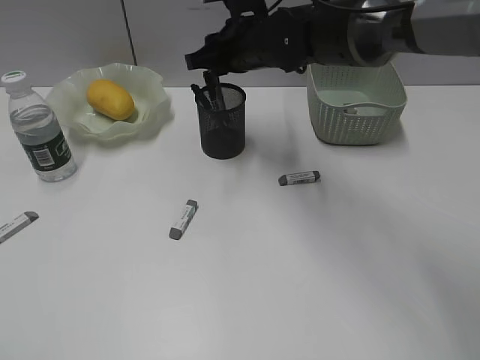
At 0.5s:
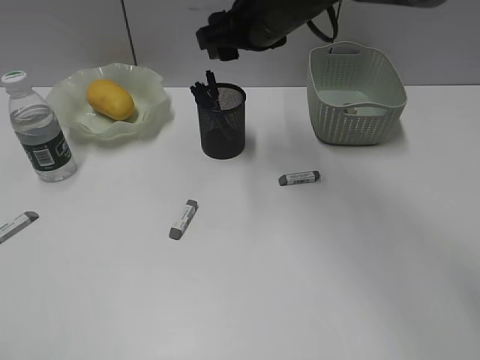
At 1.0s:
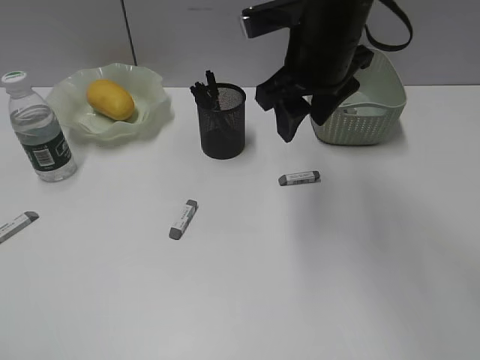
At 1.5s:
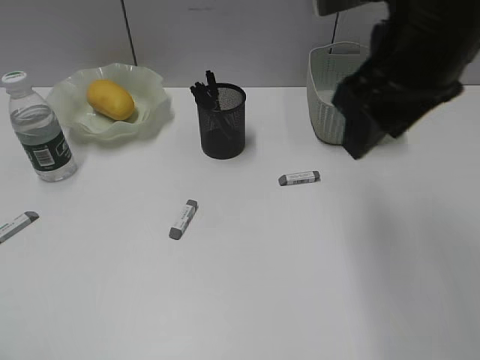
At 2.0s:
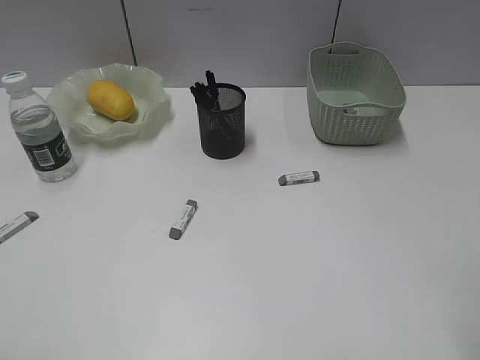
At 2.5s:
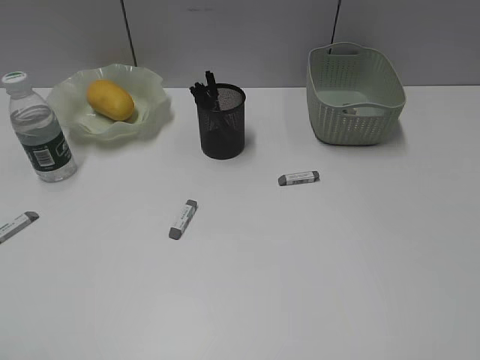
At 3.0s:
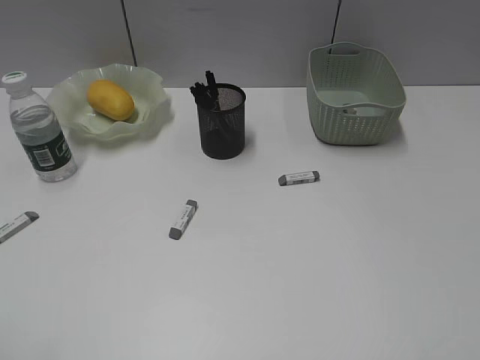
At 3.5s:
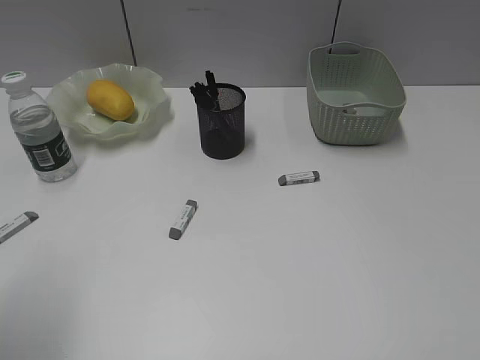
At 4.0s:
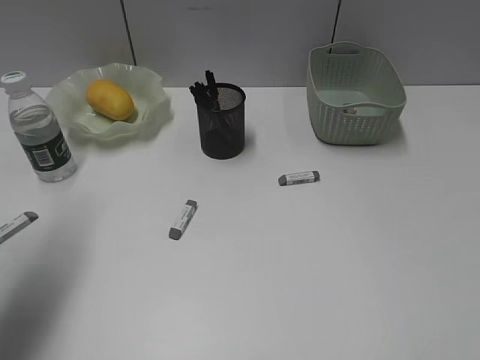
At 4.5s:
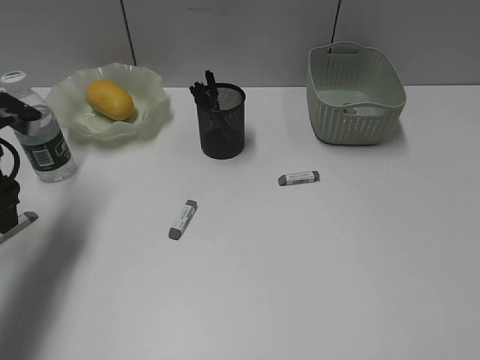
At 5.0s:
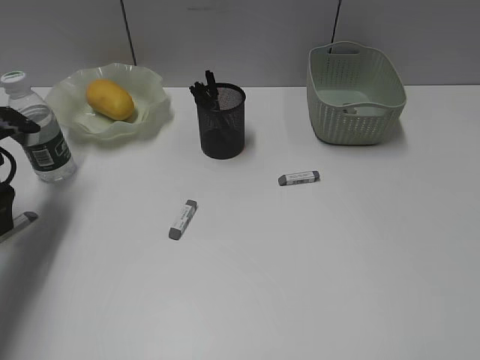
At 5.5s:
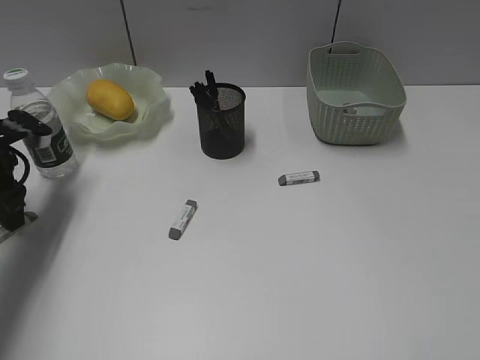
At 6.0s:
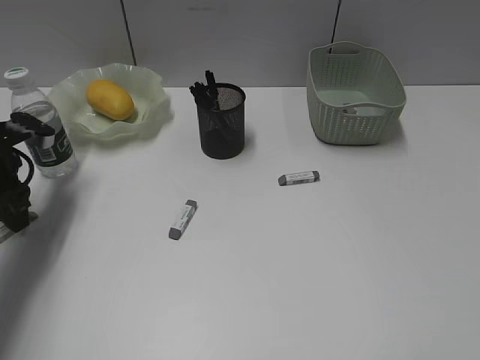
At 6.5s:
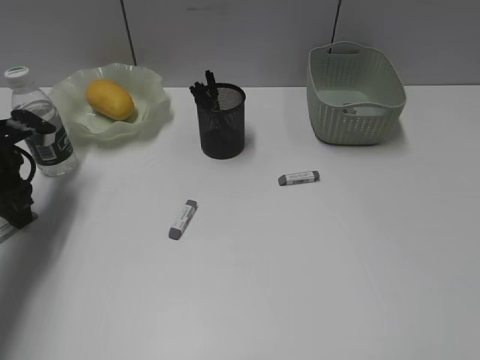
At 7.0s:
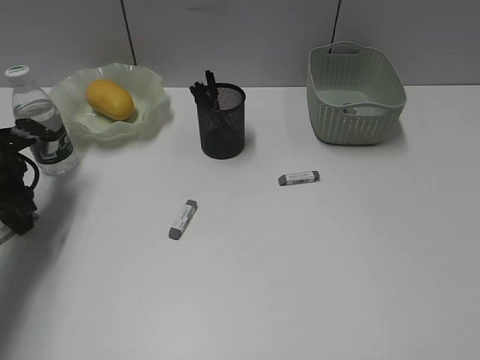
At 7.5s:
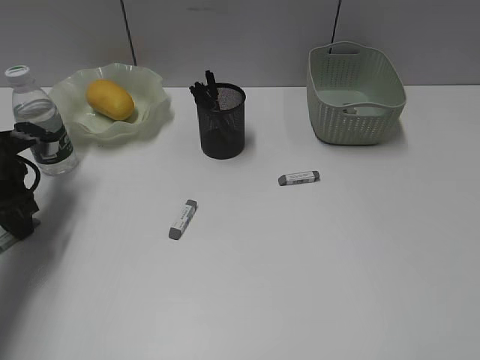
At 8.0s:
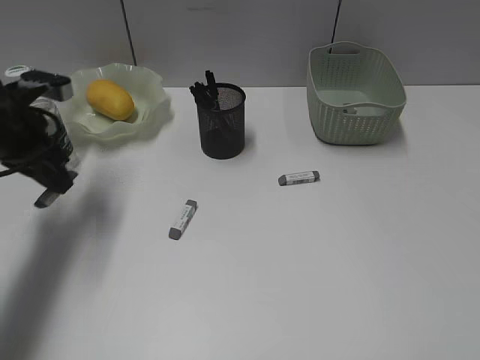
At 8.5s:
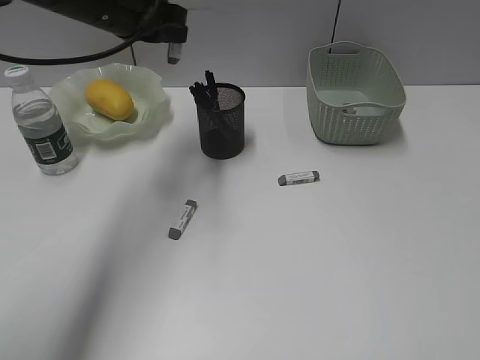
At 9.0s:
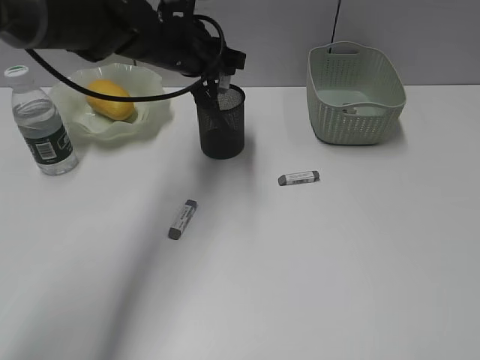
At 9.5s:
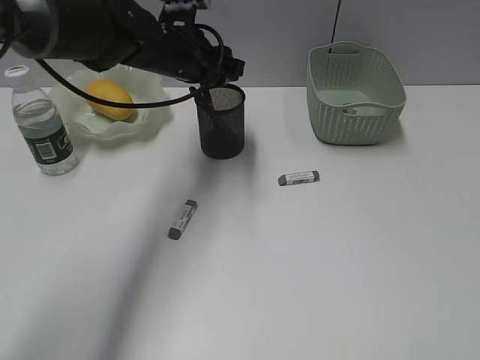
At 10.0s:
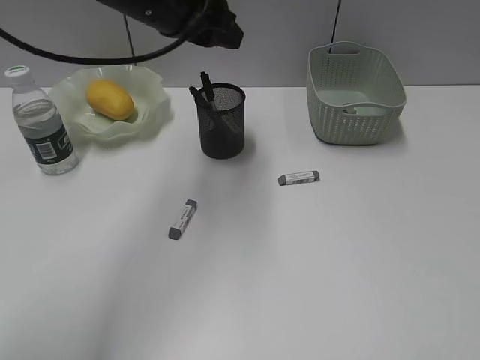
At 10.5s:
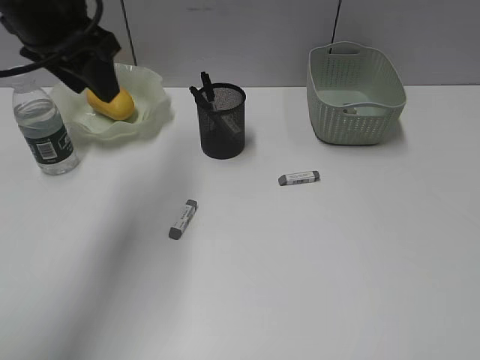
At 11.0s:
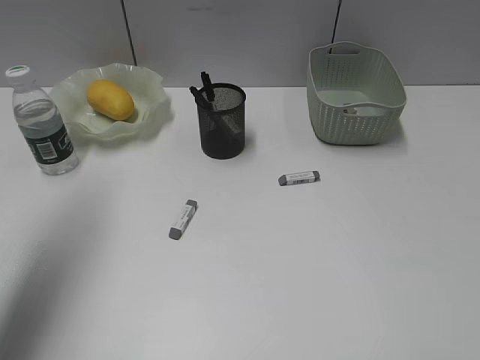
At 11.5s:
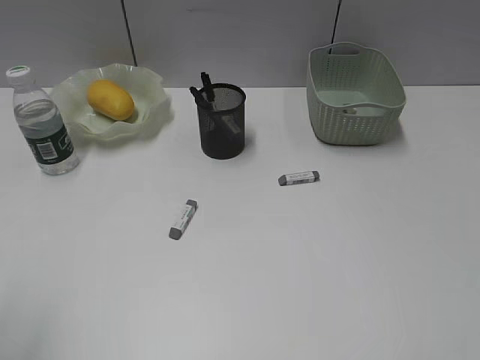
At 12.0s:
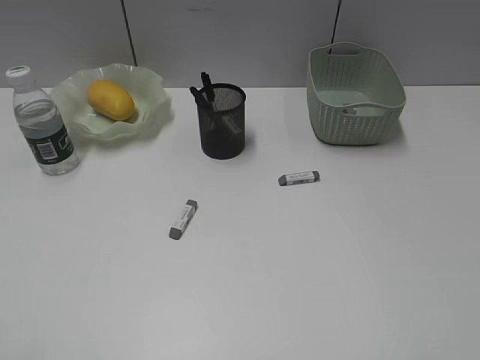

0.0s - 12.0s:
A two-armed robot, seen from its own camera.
Step, 0.5s - 7.5s: Grasp the eraser with left gripper.
Step, 8.0s - 9.5s: Place the eraser in pen holder with left gripper.
0.0s - 2.0s: The right gripper shifts some 40 cm backward and to the right.
2.0s - 4.0s: The left gripper is displaced forward by some 25 cm.
4.0s - 6.0s: The left gripper is displaced downward and forward by about 20 cm, and closes up.
6.0s - 8.0s: The left gripper travels upward and to the right by roughly 10 cm.
8.0s - 10.0s: The left gripper shifts roughly 20 cm to the right and upward, and opens.
10.0s - 12.0s: The left gripper travels backward and to the left by some 40 cm.

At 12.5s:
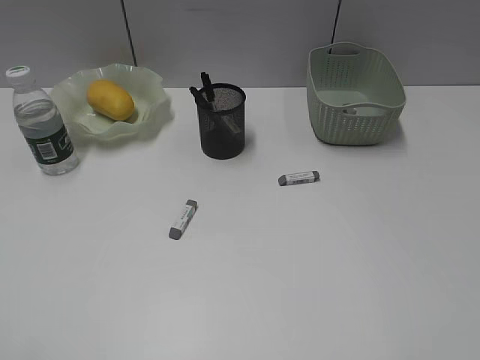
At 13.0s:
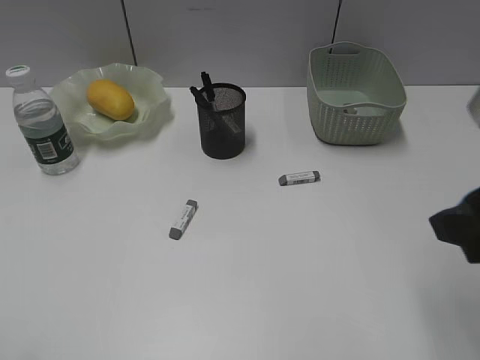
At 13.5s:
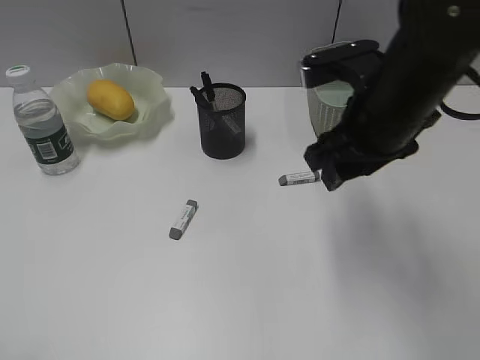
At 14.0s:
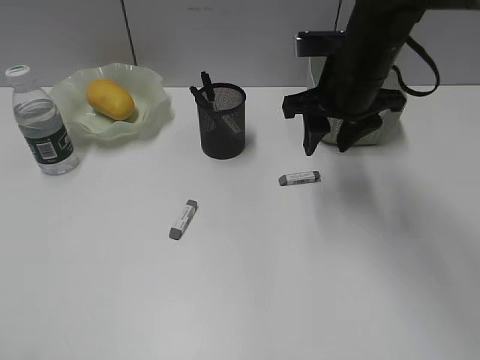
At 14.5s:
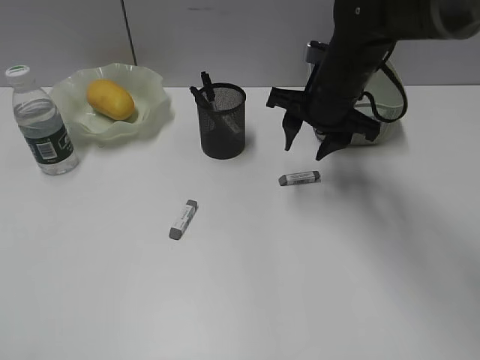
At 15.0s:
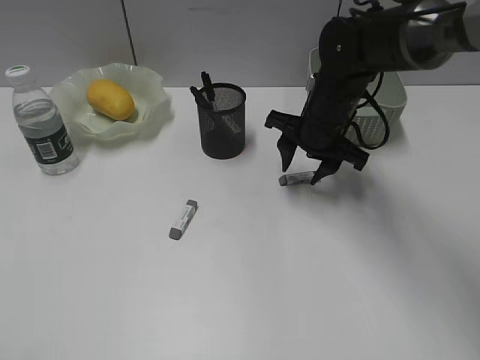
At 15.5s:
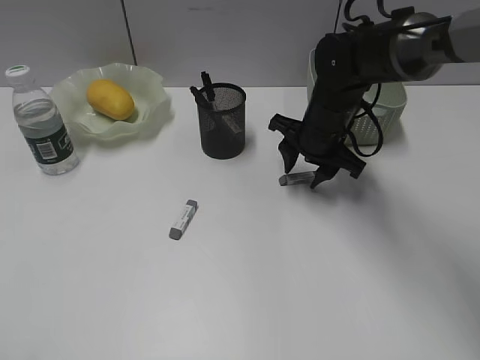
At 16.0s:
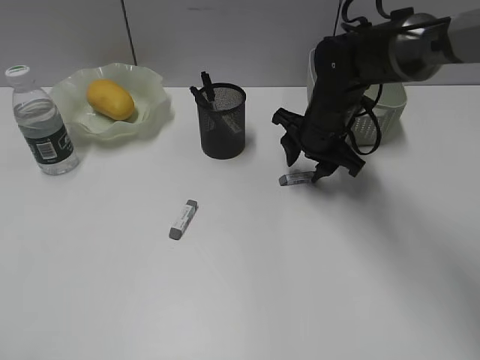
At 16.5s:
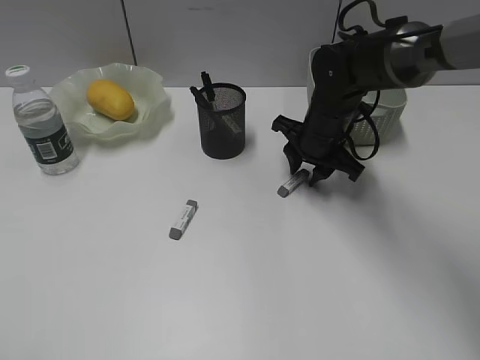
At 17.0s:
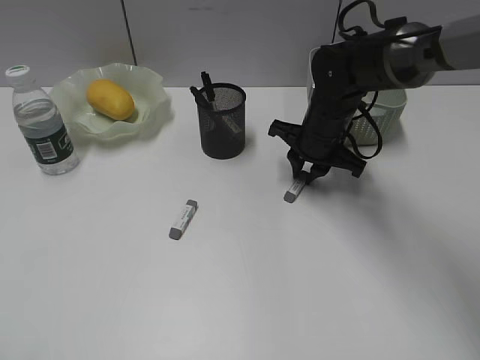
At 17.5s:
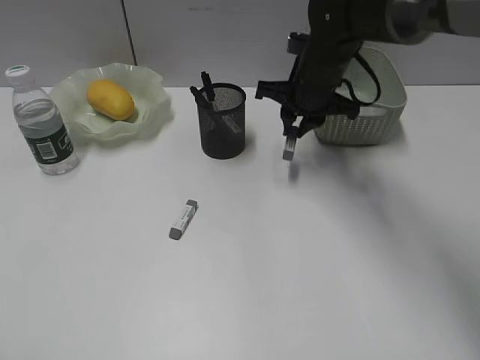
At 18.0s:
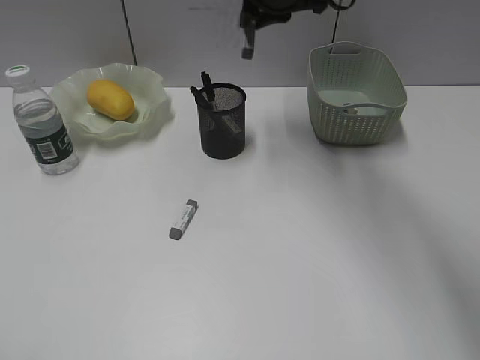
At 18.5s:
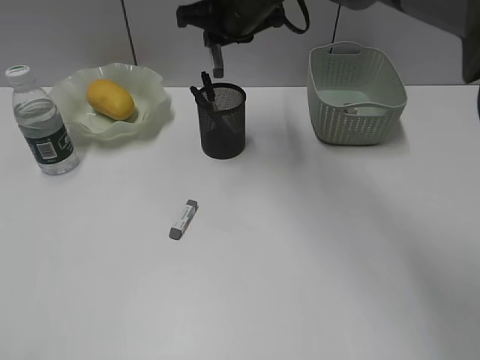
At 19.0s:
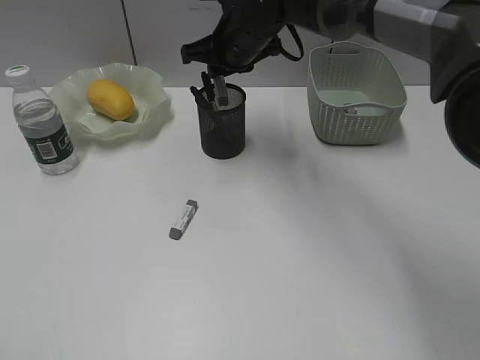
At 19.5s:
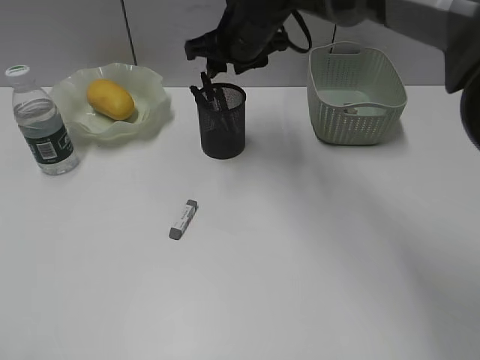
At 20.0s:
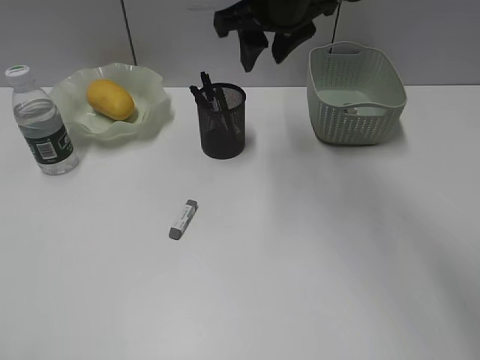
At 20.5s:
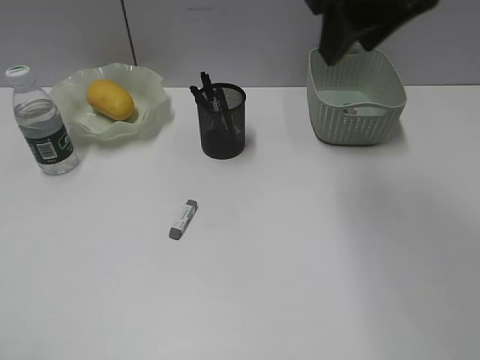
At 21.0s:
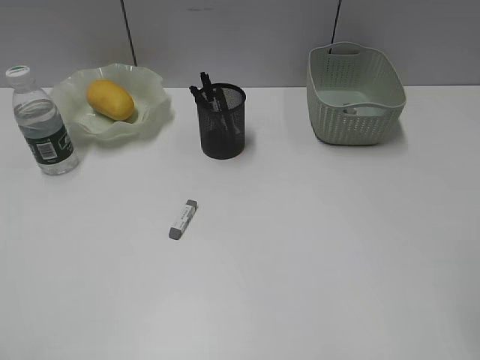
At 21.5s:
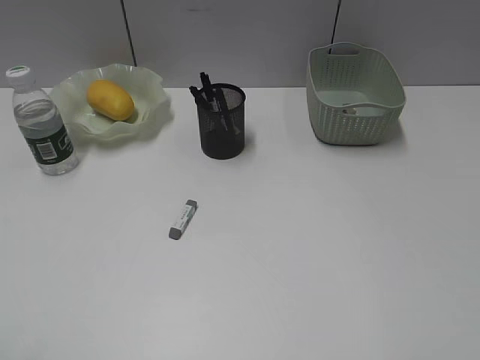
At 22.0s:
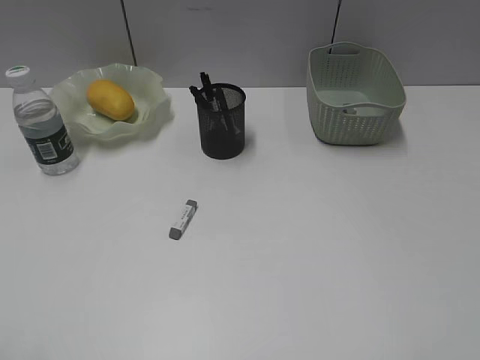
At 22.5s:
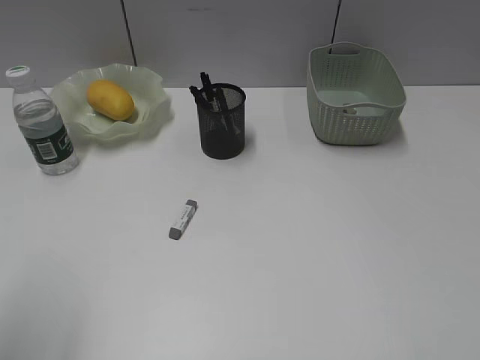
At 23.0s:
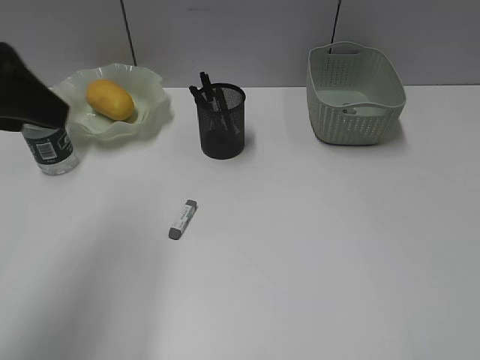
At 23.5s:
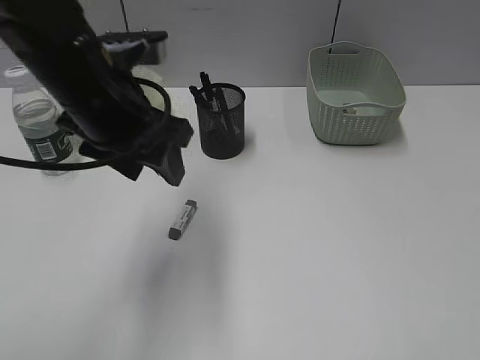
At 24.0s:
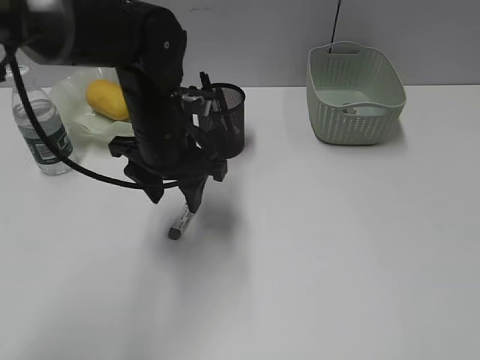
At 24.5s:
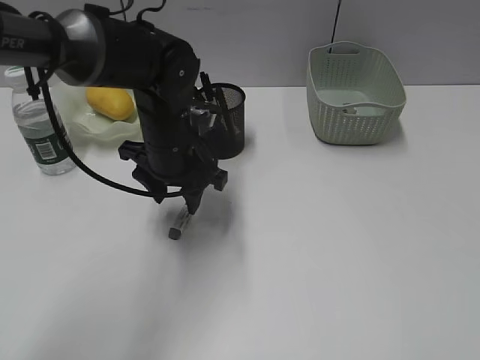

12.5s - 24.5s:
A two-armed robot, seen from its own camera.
Step, 12.5s - 17.0s: Grasp the eraser with right gripper.
Step, 17.5s - 19.5s: Place the eraser in pen holder with right gripper.
12.5s - 14.5s: The right gripper goes some 40 cm forward and to the left.
14.5s - 16.5s: The right gripper goes roughly 5 cm downward.
16.5s - 18.5s: The right gripper goes some 20 cm upward and to the left.
18.5s - 20.5s: The right gripper travels backward, upward and to the right by some 25 cm, and opens up.
20.5s - 22.5s: The left gripper is displaced forward by some 10 cm. Meanwhile the right gripper goes some 35 cm backward and to the right.
22.5s - 24.5s: The left gripper goes approximately 40 cm forward, to the right and downward.

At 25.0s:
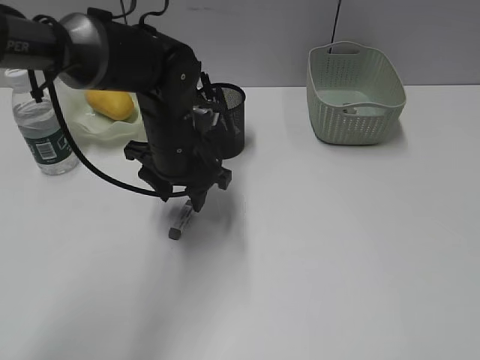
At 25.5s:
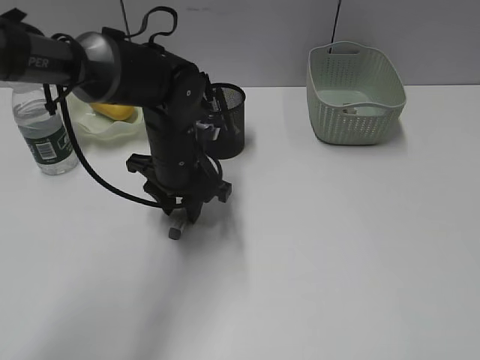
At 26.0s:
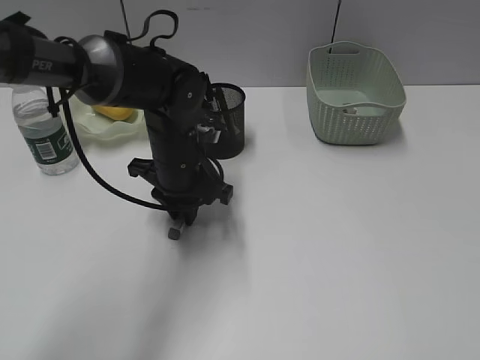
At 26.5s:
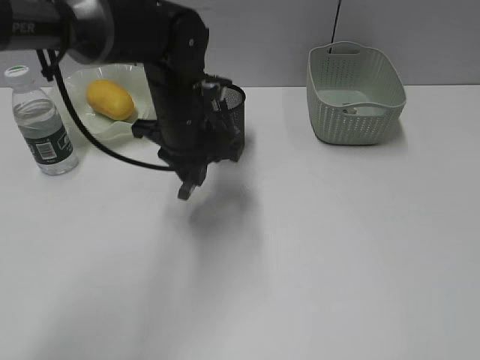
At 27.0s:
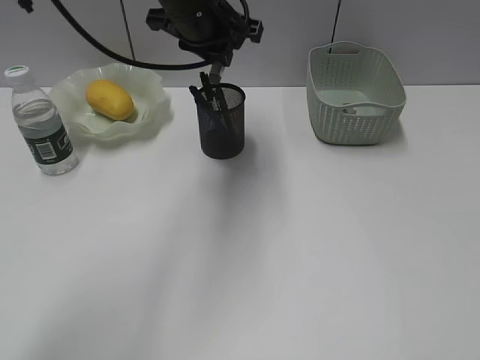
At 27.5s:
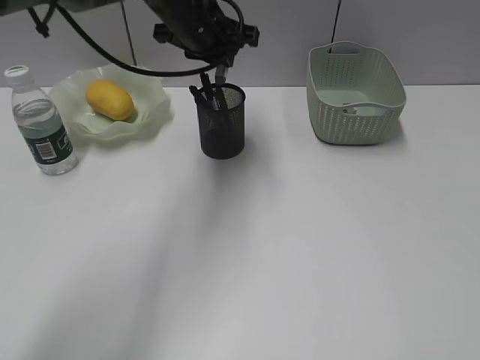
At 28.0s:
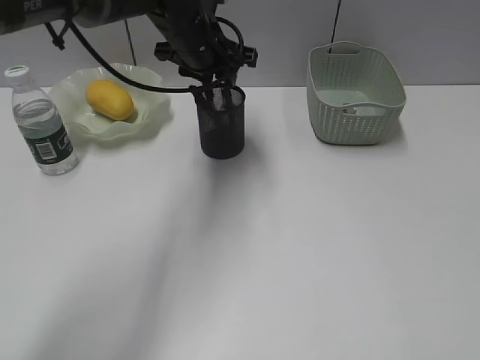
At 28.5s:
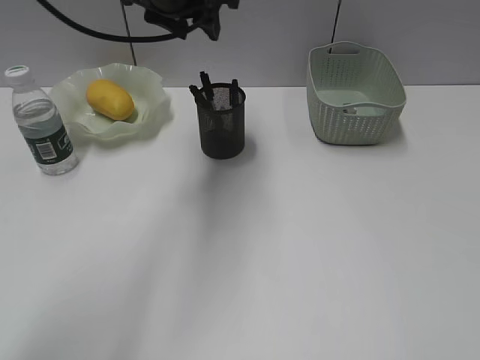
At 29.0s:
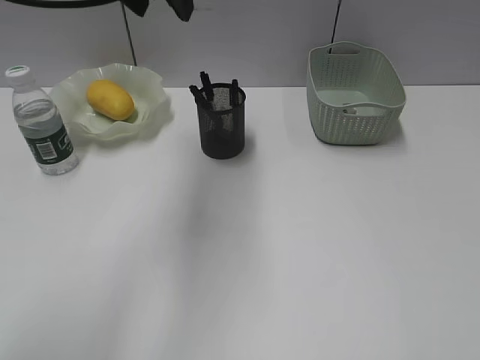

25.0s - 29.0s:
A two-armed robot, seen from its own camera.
Step, 26.5s - 28.0s: Place the eraser in pen holder with left gripper.
25.0s - 27.0s: The left gripper travels upward and forward by approximately 15 cm, and closes up.
27.0s - 29.0s: The left gripper shifts roughly 15 cm upward, backward and to the left, and opens up.
